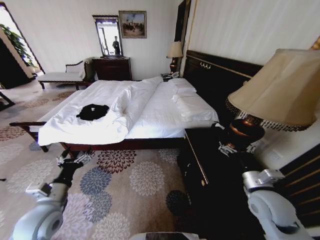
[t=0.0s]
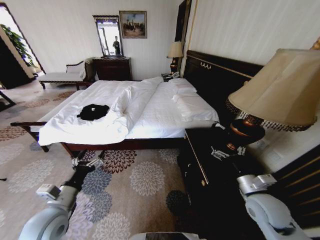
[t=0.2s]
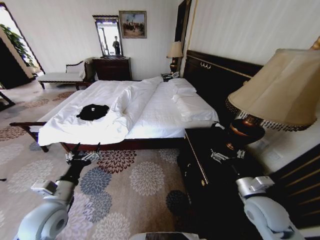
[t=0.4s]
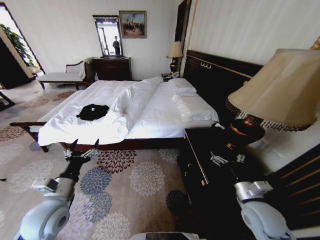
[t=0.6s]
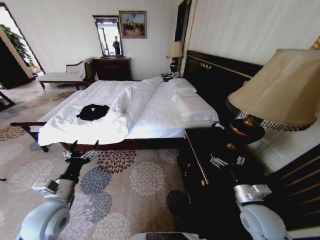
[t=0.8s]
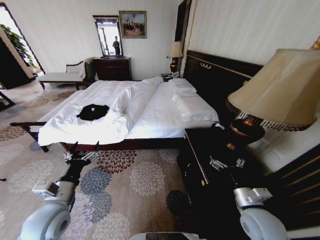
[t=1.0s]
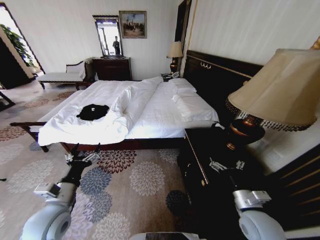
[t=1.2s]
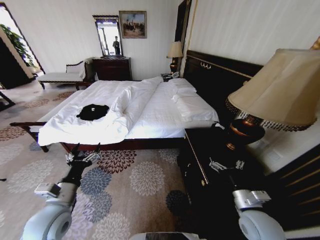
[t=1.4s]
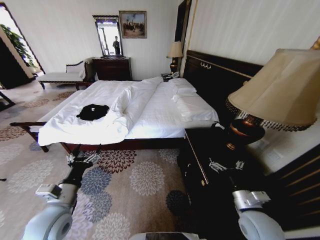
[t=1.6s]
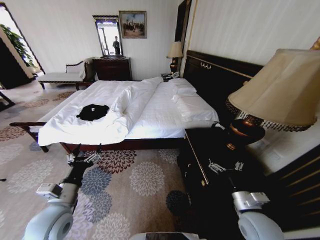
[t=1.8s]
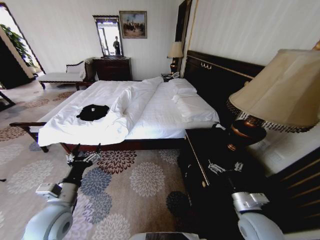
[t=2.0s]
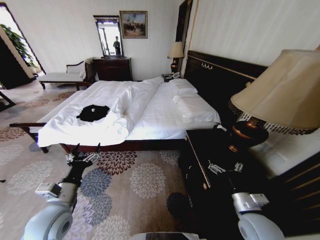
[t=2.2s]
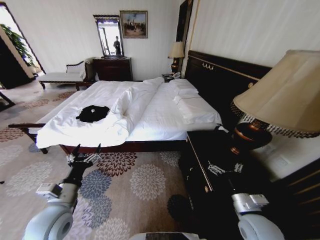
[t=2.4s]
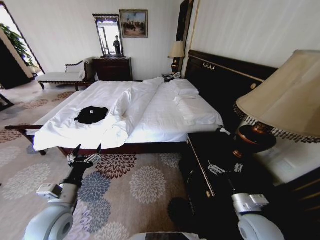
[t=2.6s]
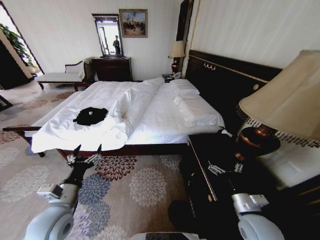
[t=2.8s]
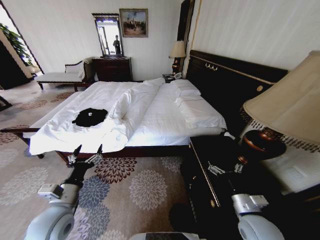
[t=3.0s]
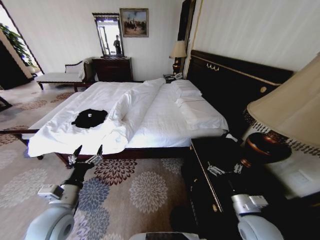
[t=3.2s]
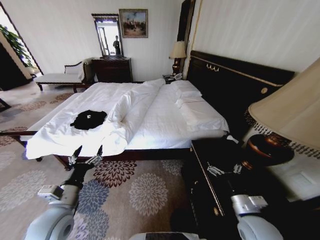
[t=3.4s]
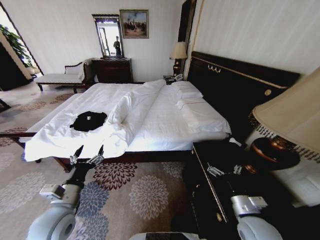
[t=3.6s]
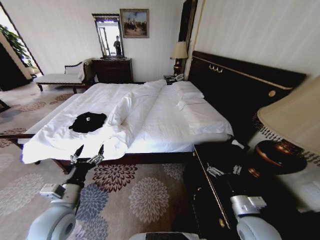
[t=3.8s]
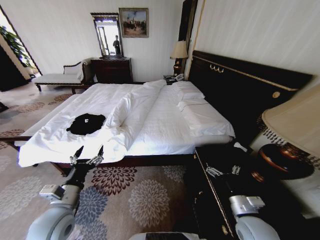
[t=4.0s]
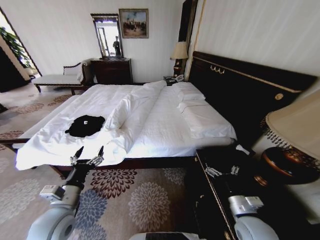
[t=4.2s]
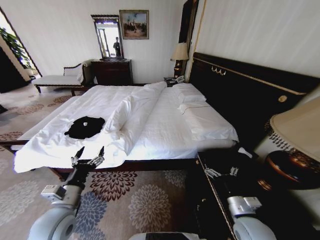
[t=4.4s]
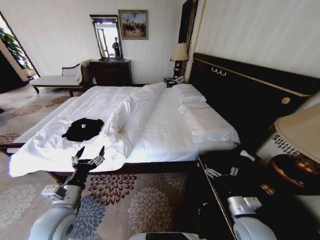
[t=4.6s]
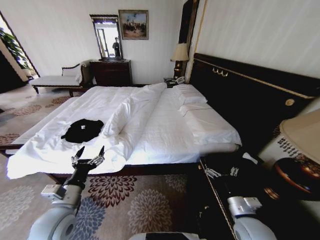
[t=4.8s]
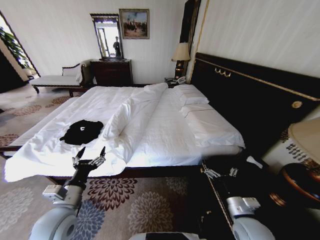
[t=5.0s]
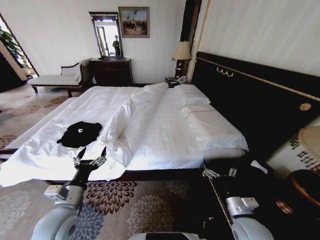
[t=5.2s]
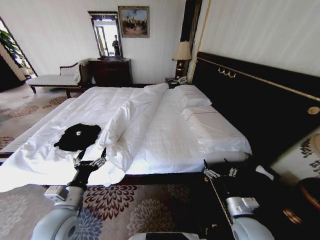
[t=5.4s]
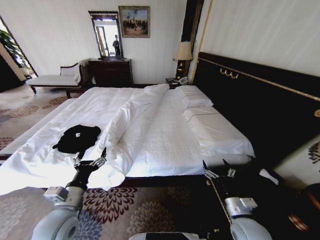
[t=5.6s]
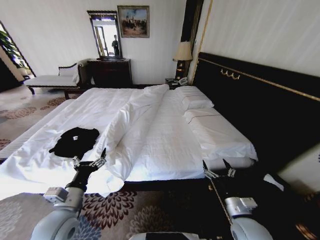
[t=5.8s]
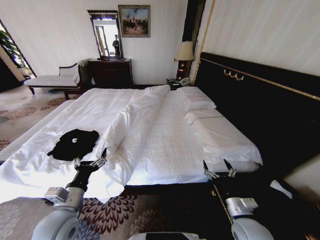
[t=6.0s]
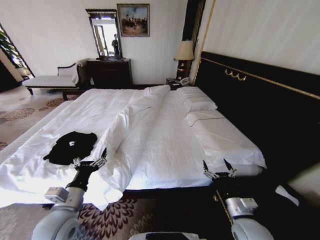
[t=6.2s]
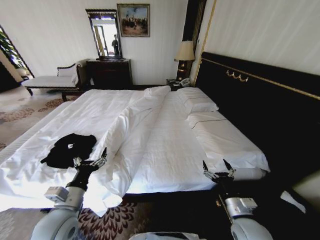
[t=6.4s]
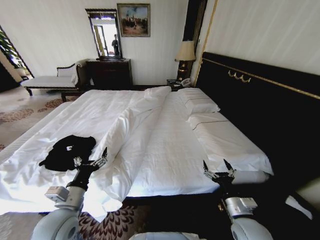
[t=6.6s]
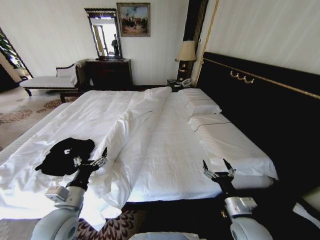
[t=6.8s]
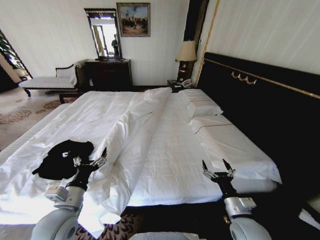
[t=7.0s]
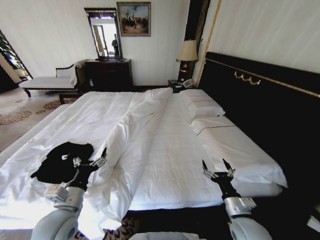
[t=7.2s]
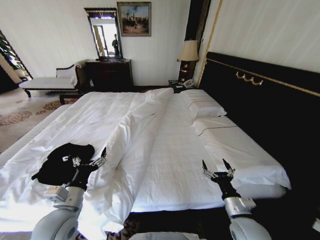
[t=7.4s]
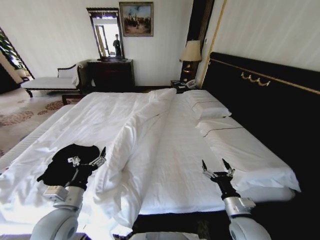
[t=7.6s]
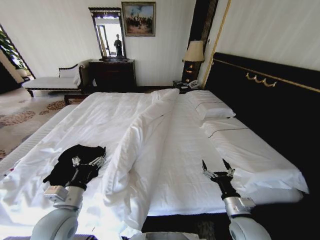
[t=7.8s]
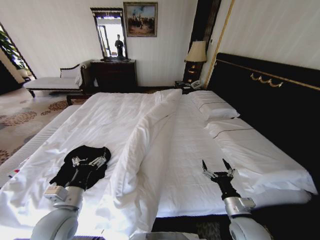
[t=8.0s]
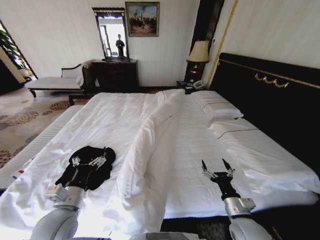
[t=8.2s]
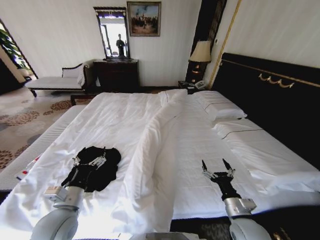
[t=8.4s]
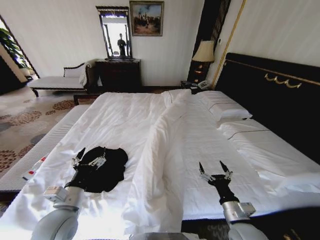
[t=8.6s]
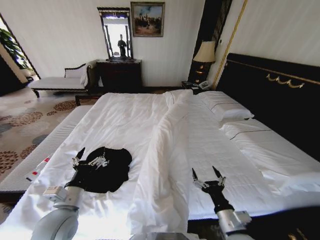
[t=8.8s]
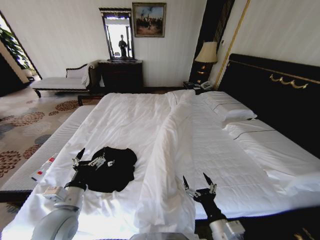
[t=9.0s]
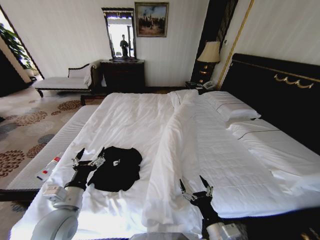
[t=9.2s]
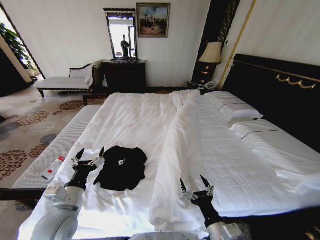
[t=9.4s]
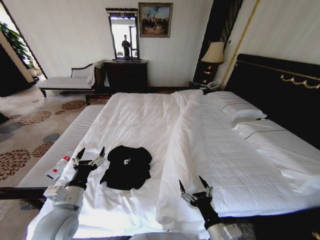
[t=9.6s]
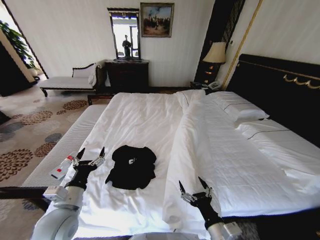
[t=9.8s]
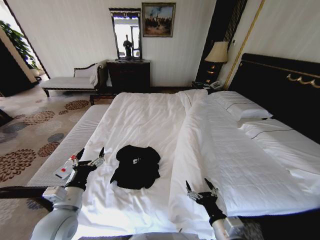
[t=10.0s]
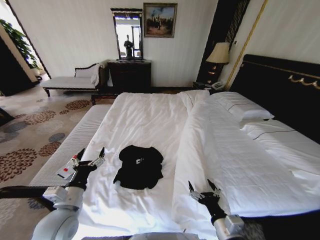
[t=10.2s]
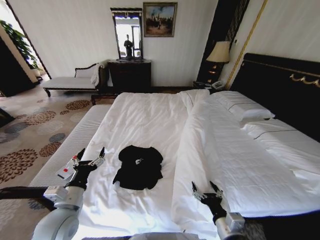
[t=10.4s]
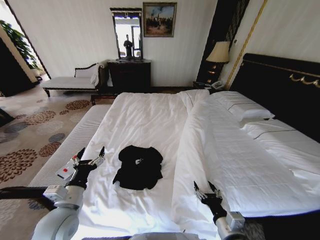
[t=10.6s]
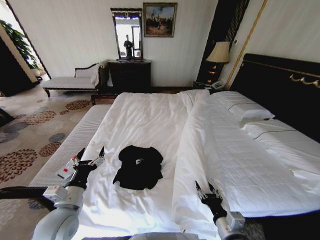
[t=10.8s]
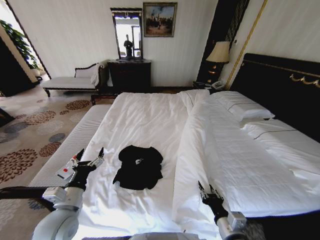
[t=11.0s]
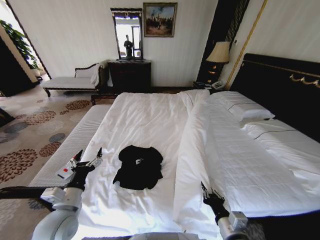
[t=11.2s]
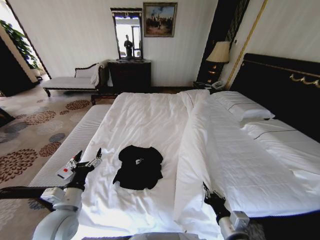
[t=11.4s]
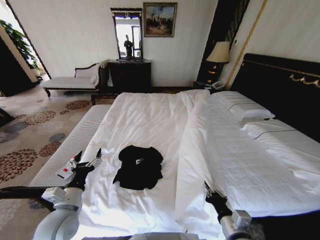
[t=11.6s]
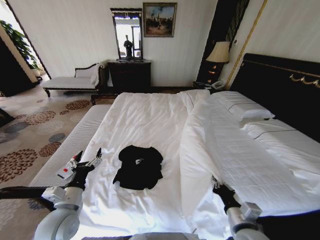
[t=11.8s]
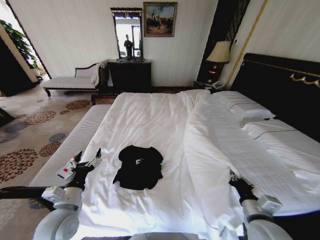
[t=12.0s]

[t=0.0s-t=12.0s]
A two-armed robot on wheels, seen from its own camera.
Task of the whole recording: Fold the clothes on the bed.
t=7.6s to t=9.0s: The right gripper moves to the left and backward, some 10 cm.
t=10.4s to t=12.0s: The right gripper is displaced to the right by approximately 10 cm, and closes.

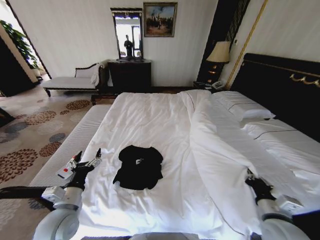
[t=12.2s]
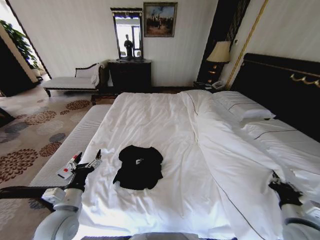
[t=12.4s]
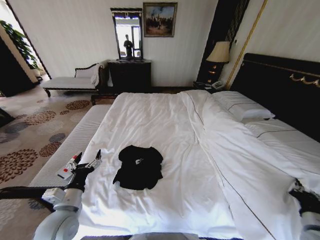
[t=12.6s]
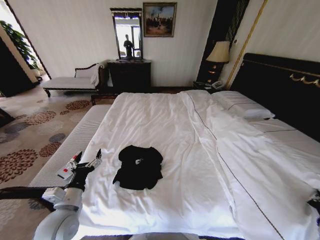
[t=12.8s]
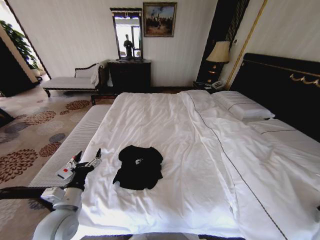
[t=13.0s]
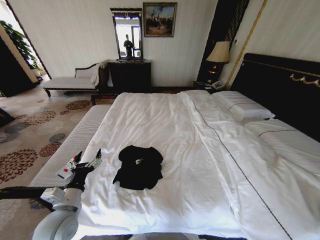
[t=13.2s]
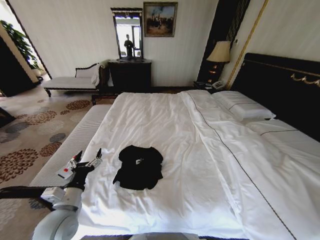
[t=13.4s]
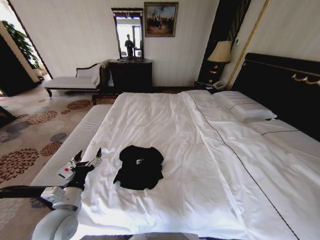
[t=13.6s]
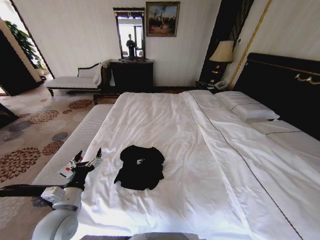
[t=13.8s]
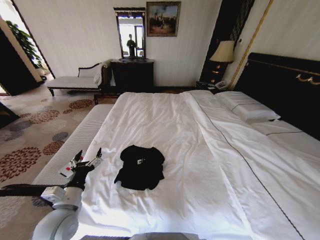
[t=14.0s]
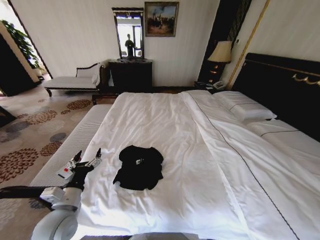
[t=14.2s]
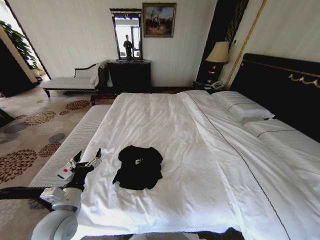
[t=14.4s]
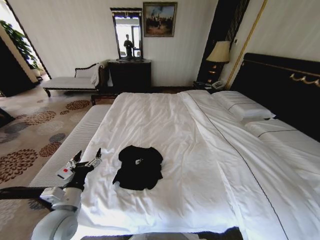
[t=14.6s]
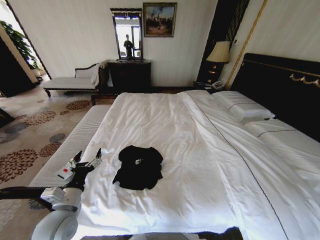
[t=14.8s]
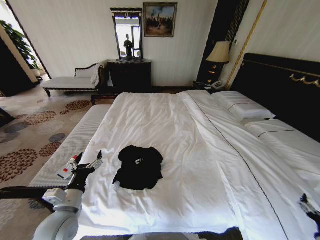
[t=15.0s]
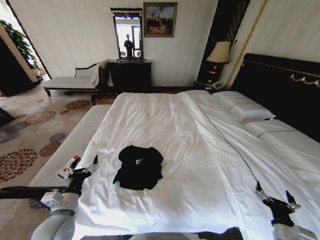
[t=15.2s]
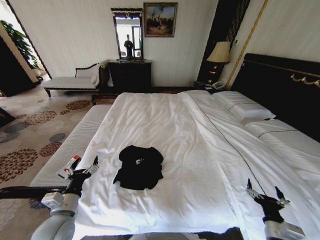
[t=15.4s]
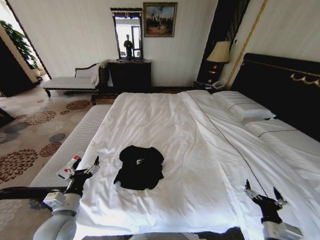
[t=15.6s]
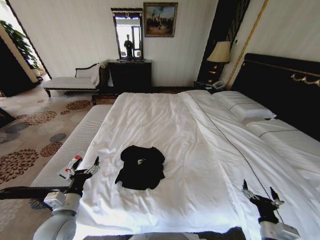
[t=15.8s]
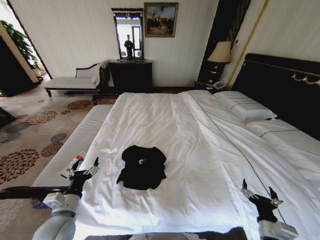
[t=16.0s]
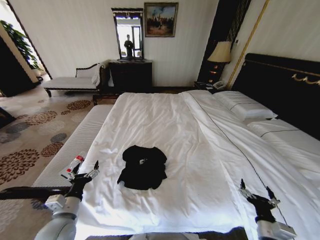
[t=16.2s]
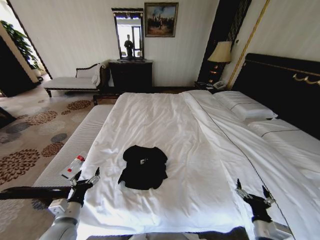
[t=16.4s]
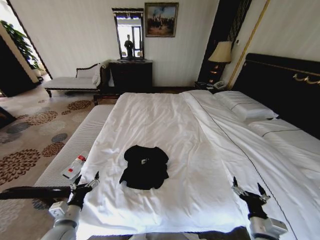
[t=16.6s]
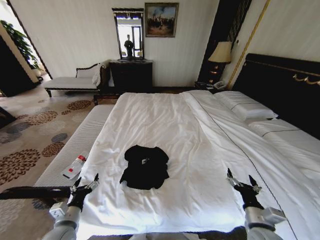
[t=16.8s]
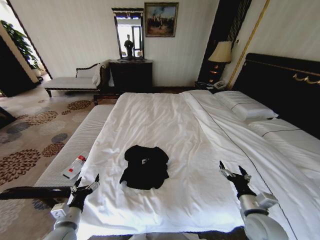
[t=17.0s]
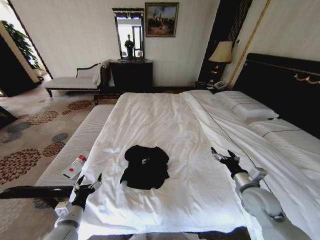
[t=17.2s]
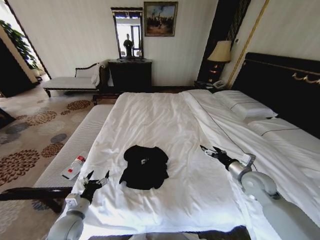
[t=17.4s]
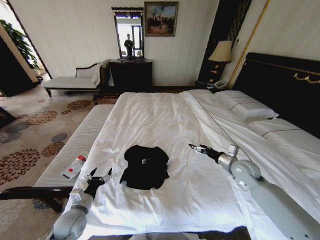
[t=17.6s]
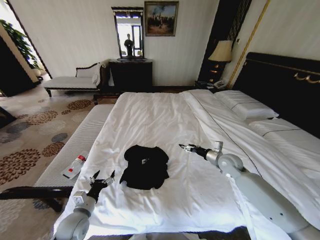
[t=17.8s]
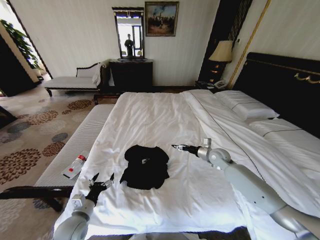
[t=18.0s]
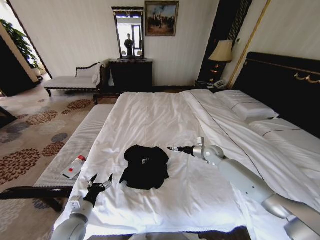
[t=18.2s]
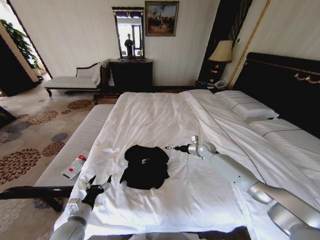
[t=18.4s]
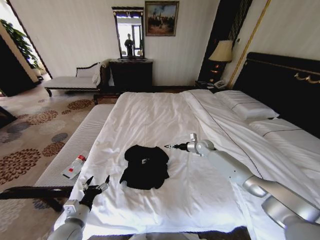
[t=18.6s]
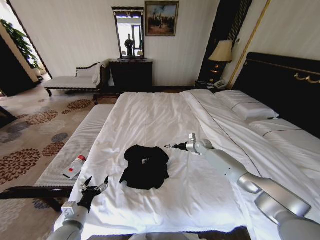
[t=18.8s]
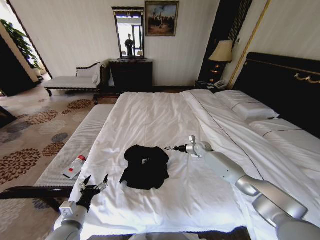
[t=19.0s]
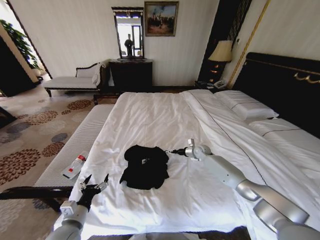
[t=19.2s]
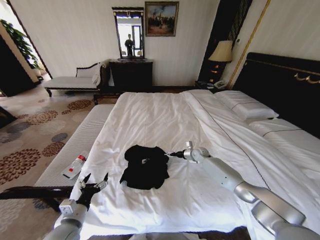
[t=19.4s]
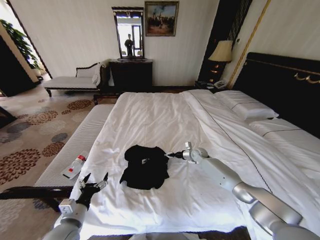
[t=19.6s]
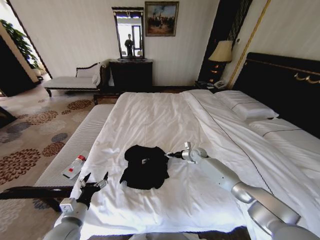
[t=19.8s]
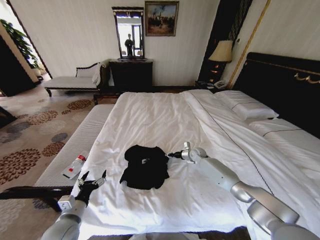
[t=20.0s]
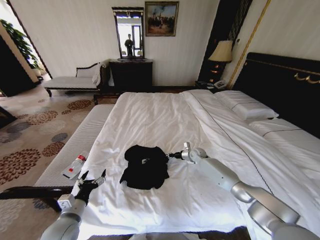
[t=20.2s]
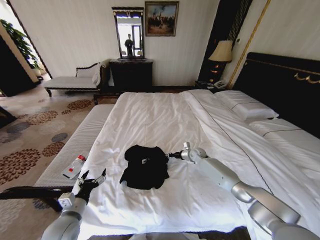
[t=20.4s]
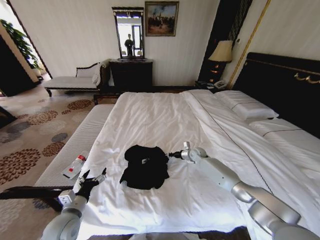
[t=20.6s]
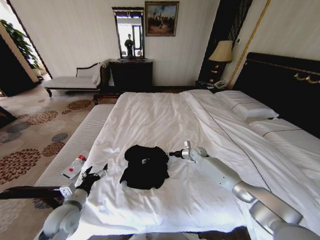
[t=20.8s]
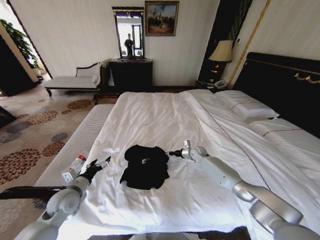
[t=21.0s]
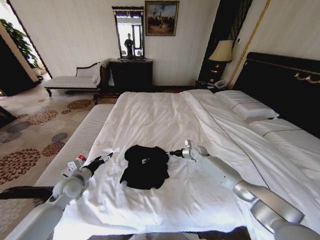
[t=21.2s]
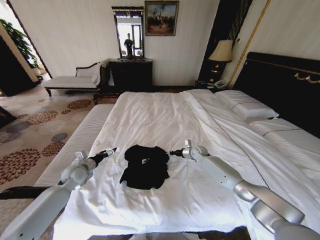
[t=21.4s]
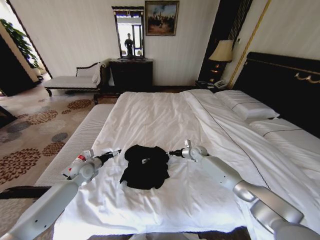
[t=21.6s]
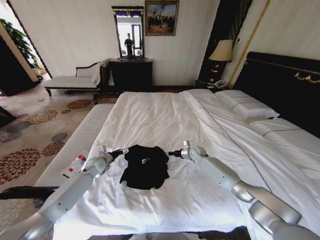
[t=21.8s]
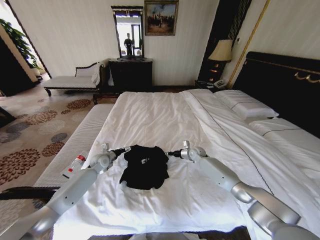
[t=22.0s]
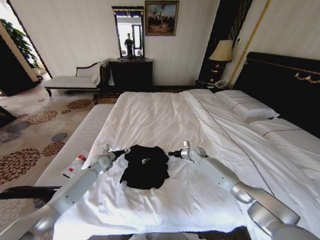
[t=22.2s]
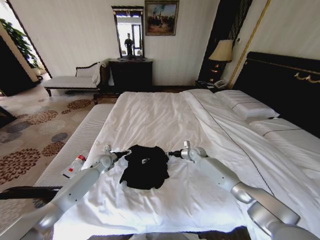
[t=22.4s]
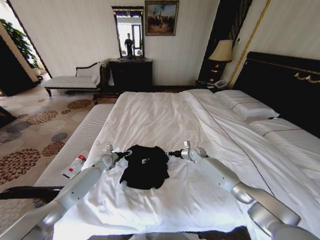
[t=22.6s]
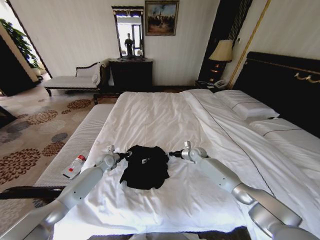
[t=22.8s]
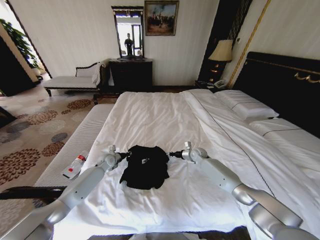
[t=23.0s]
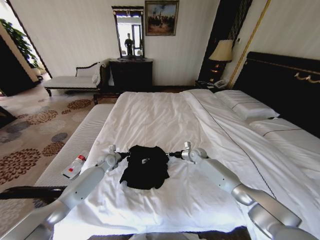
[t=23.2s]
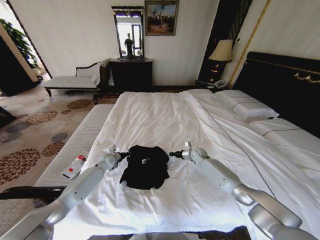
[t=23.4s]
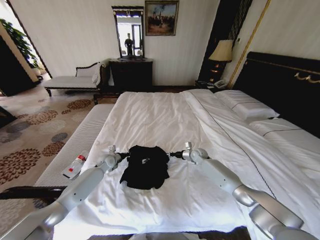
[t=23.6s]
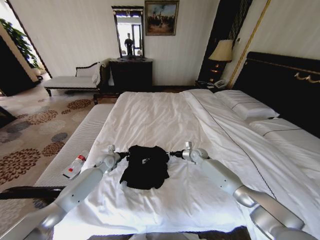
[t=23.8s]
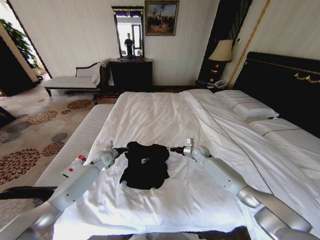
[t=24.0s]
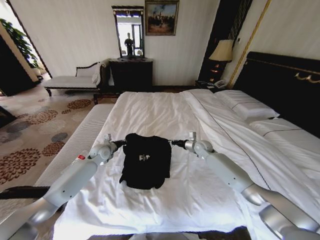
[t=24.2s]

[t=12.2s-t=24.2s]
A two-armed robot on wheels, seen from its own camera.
Task of the whole recording: Fold the clothes on the bed.
t=12.2s to t=13.8s: The right gripper is displaced to the right by approximately 30 cm.
t=13.8s to t=15.2s: The right gripper heads to the left, covering about 20 cm, and opens.
t=15.2s to t=16.6s: The left gripper goes about 5 cm downward. The right gripper moves to the left, some 10 cm.
t=16.6s to t=18.2s: The right gripper moves forward, about 35 cm.
t=18.2s to t=19.8s: The right gripper goes about 10 cm downward and forward, and closes its fingers.
t=19.8s to t=21.2s: The left gripper goes about 15 cm forward. Meanwhile the right gripper closes up.
t=21.2s to t=22.6s: The left gripper is displaced forward, to the right and downward by roughly 20 cm.
t=22.6s to t=24.2s: The two grippers go roughly 5 cm upward. The left gripper closes up.
